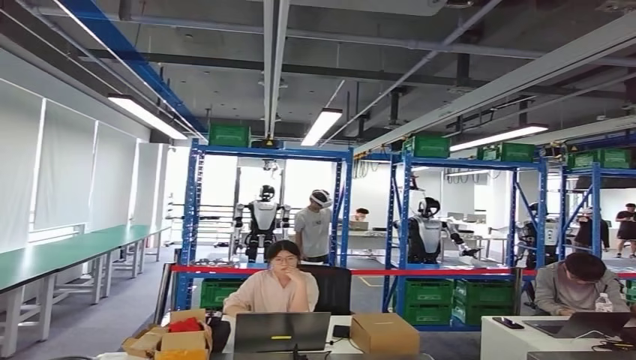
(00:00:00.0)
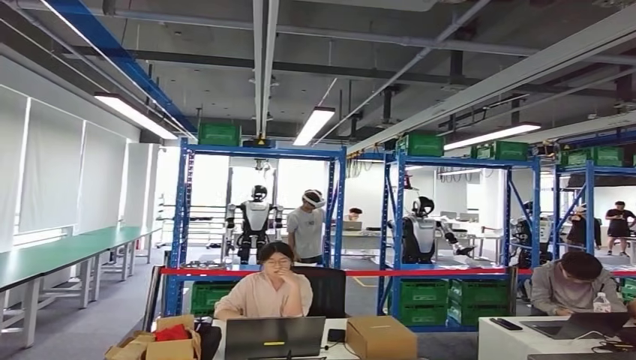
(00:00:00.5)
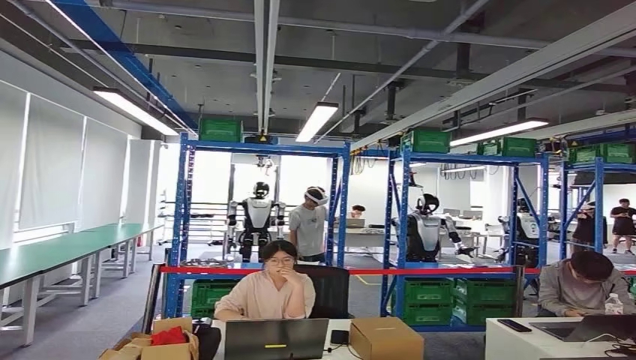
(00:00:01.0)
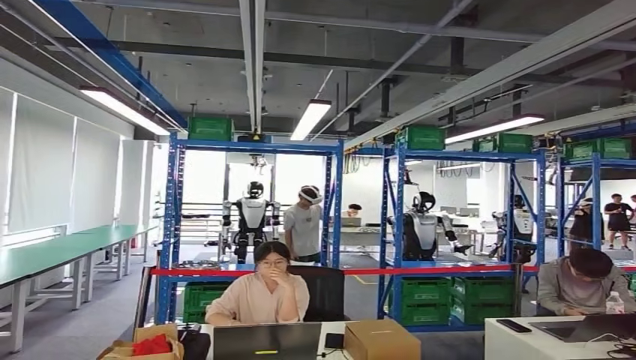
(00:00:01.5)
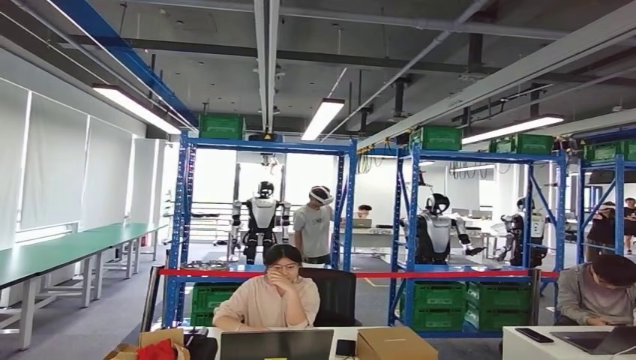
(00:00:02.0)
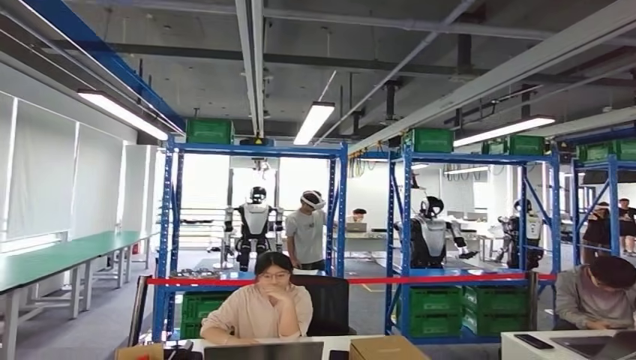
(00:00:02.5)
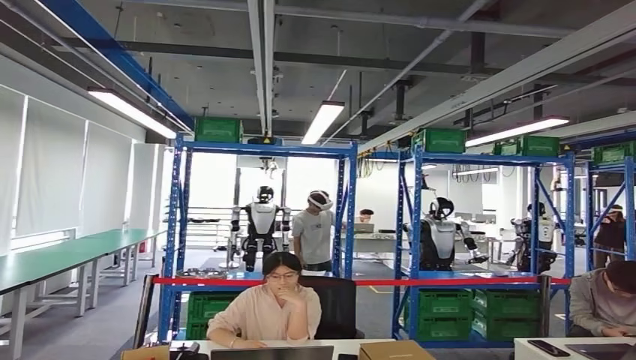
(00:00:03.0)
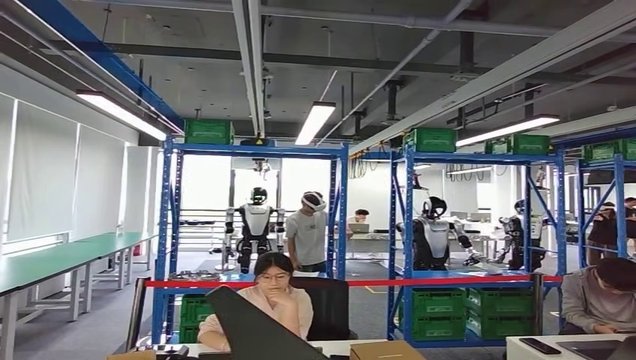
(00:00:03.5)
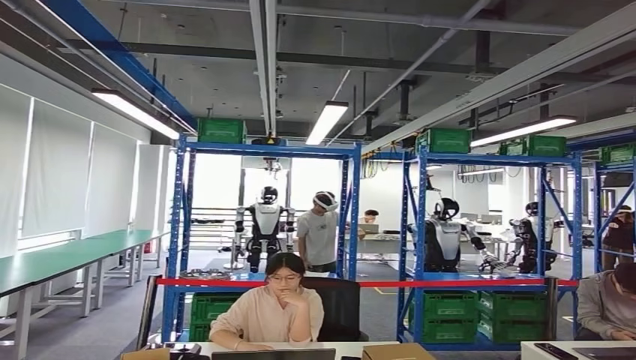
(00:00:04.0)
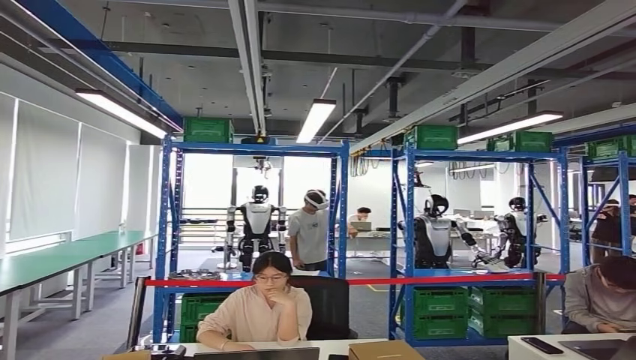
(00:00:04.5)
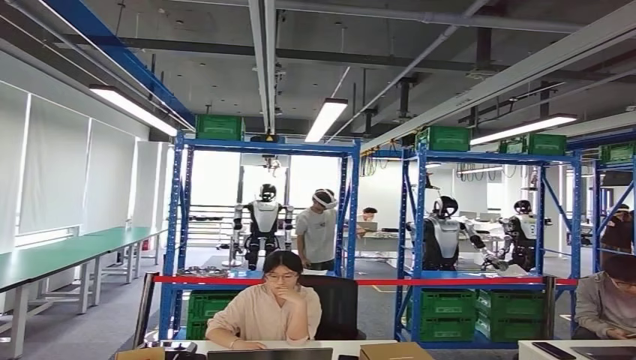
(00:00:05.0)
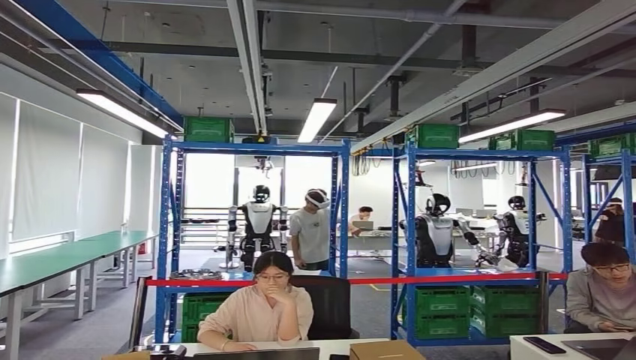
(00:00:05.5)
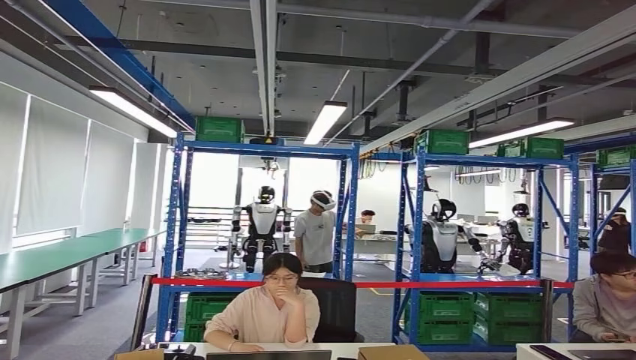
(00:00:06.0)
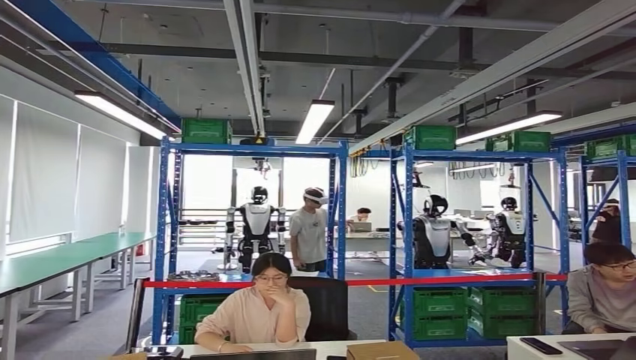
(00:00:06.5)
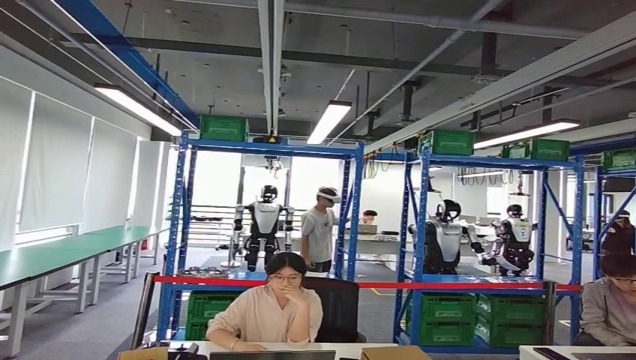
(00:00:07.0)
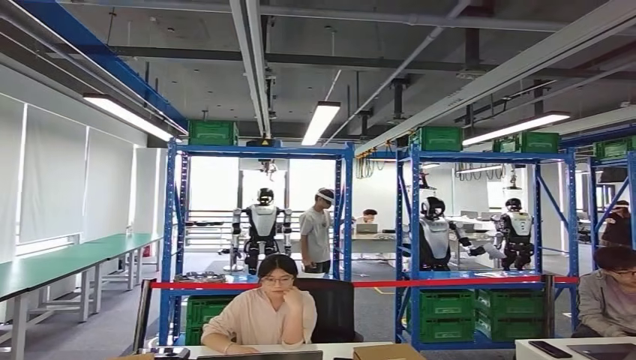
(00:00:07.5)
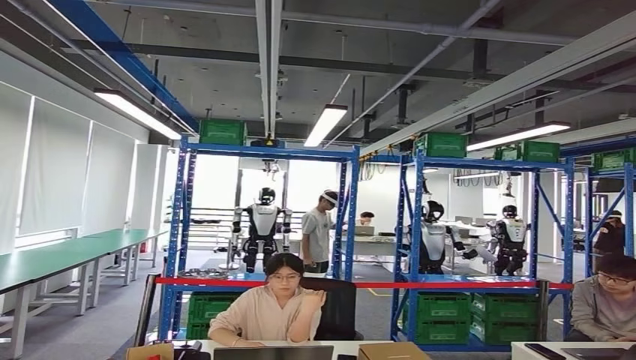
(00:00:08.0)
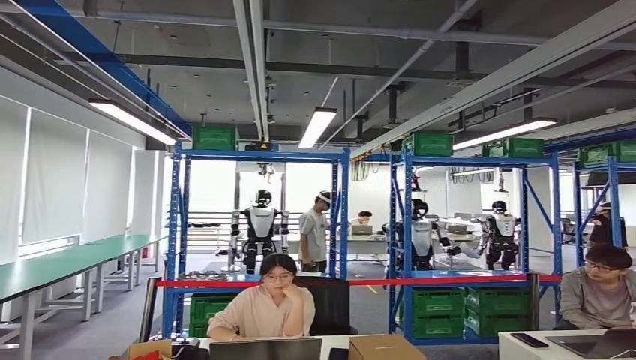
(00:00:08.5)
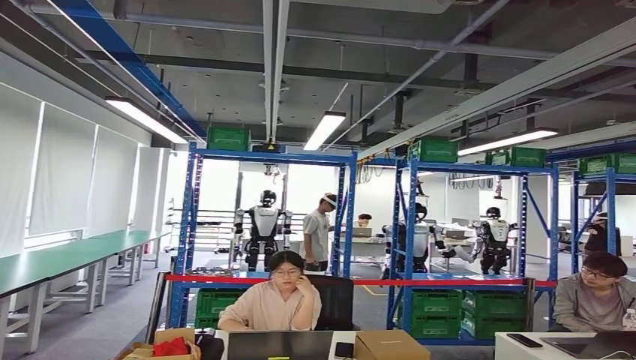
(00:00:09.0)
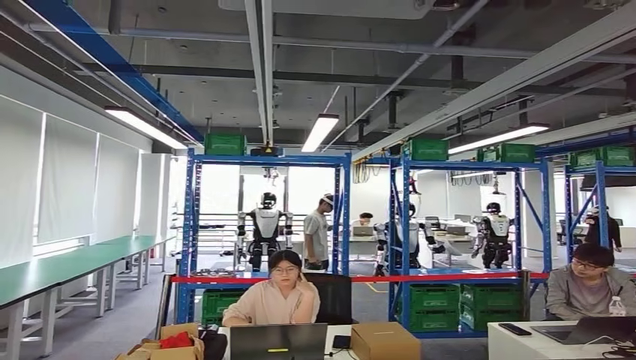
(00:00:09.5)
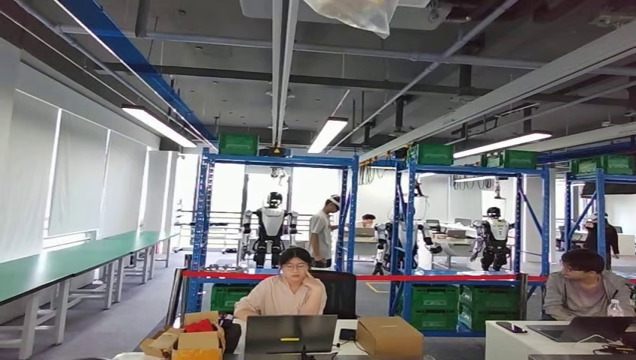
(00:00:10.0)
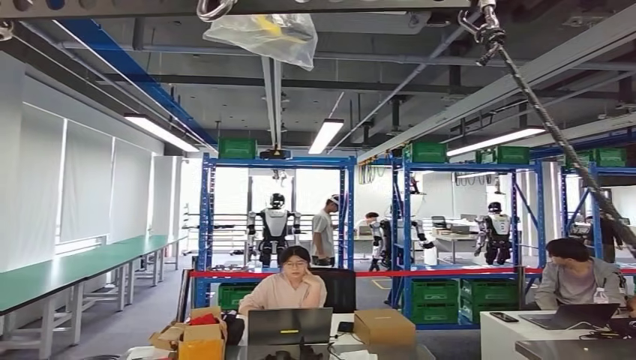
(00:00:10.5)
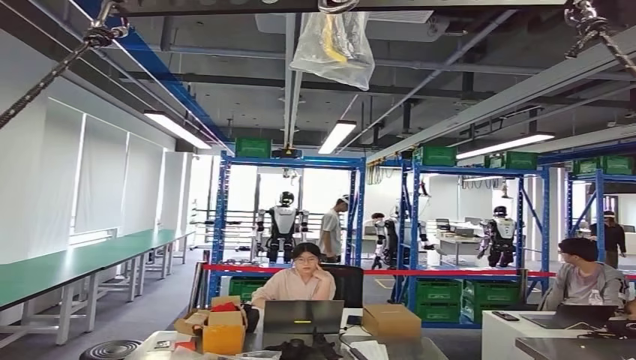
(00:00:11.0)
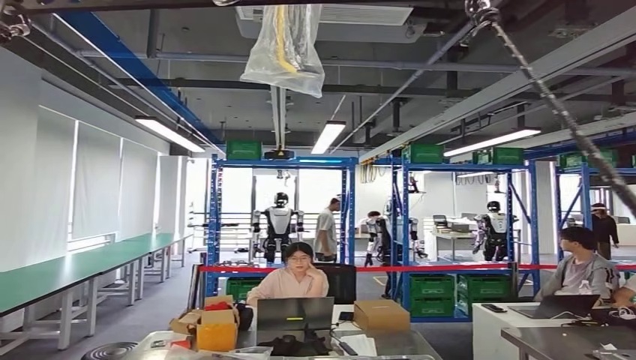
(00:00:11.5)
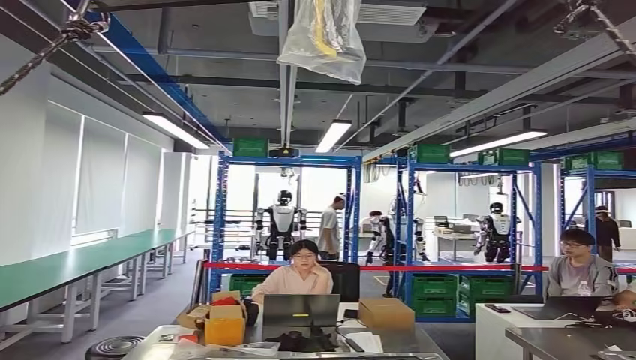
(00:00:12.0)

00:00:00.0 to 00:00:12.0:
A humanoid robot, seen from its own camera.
Step, 00:00:00.0 to 00:00:05.0: Move the small parts to the workbench.
Step, 00:00:05.5 to 00:00:09.0: Insert the small parts into the corresponding holes on the workbench.
Step, 00:00:09.5 to 00:00:11.5: Move to the initial position at the workbench.

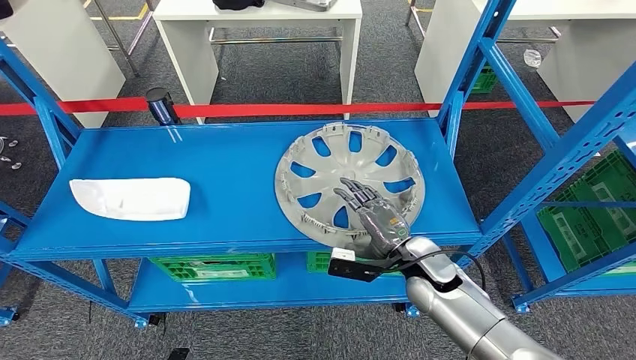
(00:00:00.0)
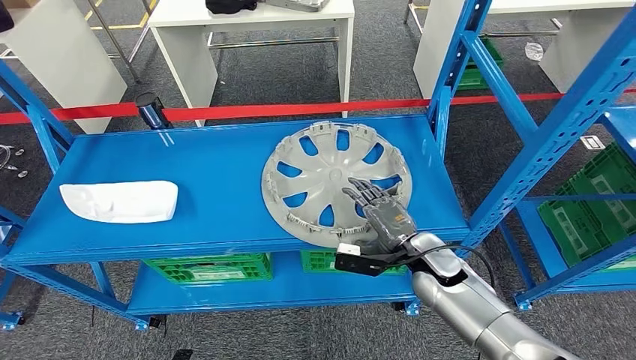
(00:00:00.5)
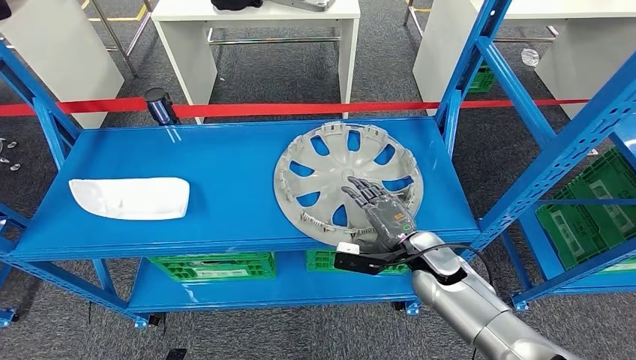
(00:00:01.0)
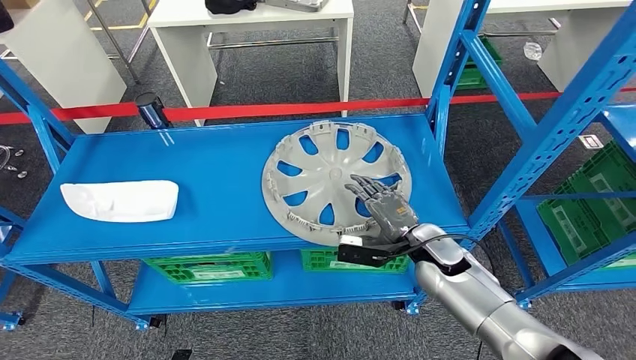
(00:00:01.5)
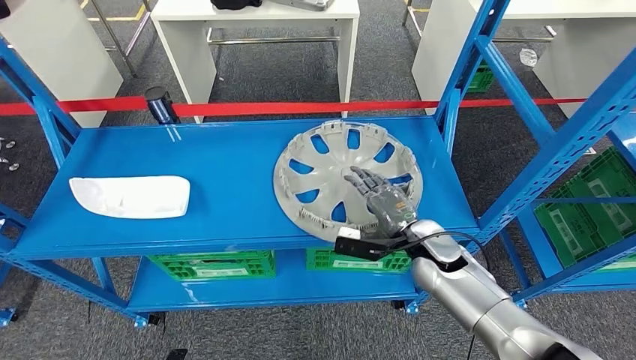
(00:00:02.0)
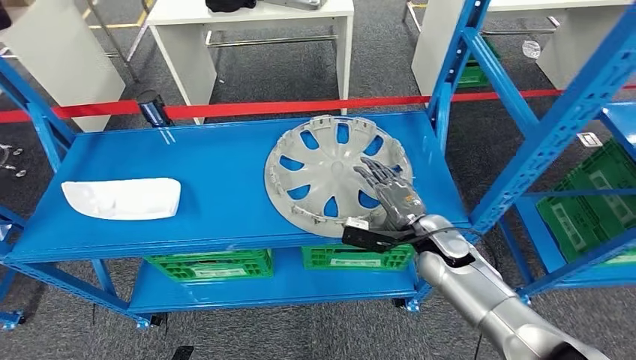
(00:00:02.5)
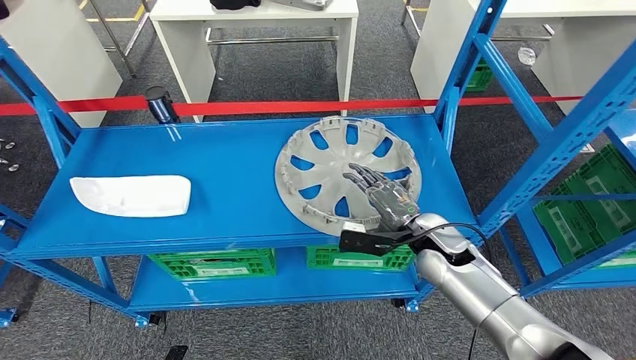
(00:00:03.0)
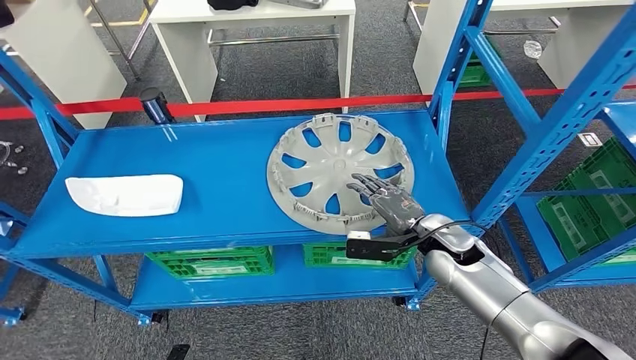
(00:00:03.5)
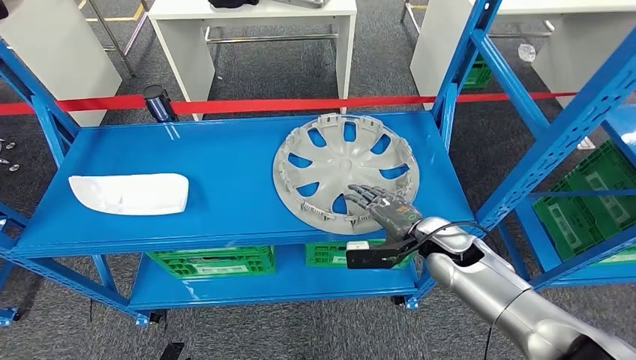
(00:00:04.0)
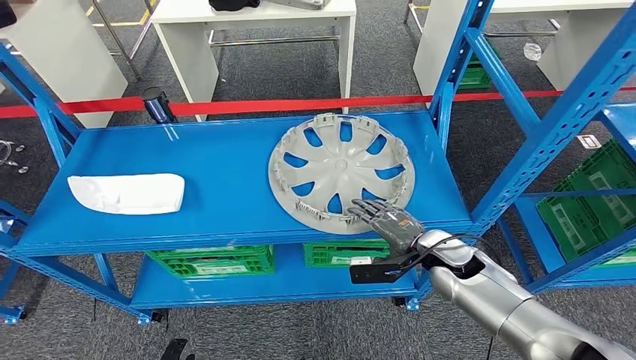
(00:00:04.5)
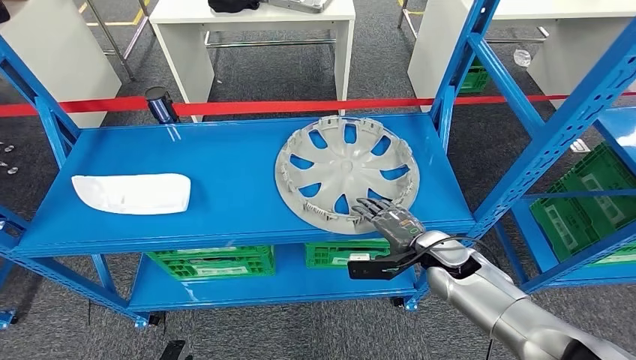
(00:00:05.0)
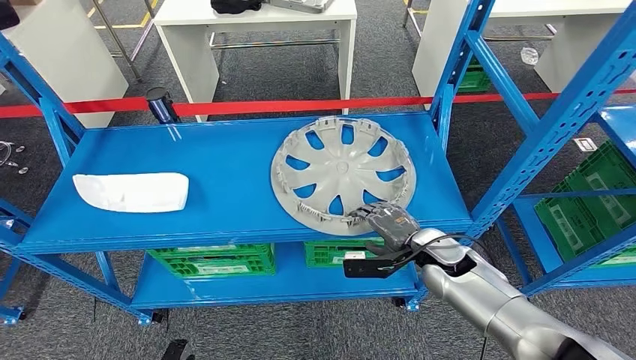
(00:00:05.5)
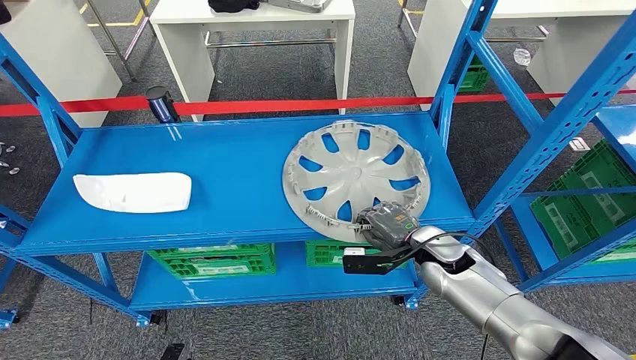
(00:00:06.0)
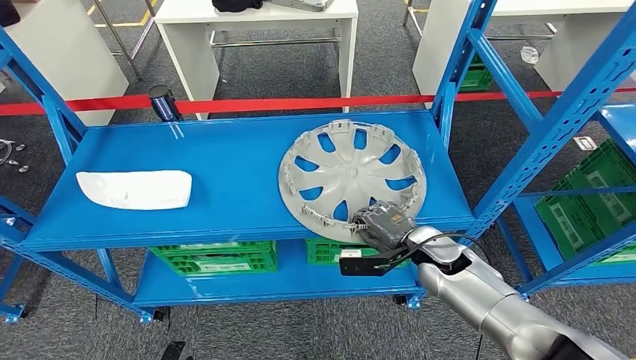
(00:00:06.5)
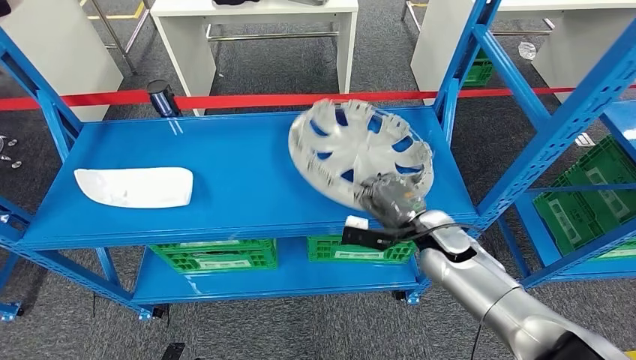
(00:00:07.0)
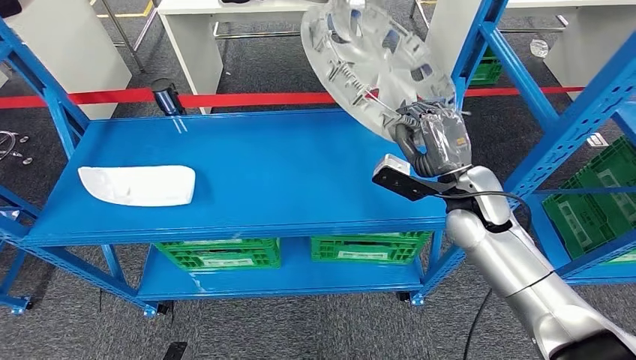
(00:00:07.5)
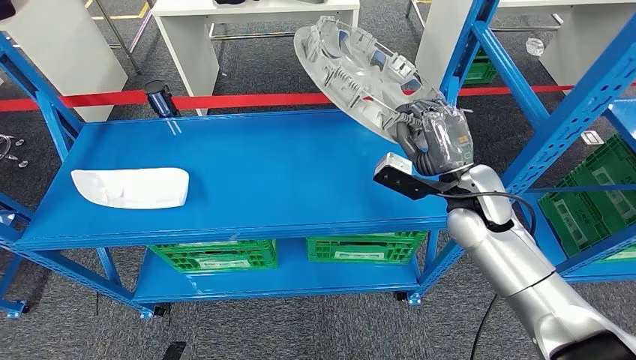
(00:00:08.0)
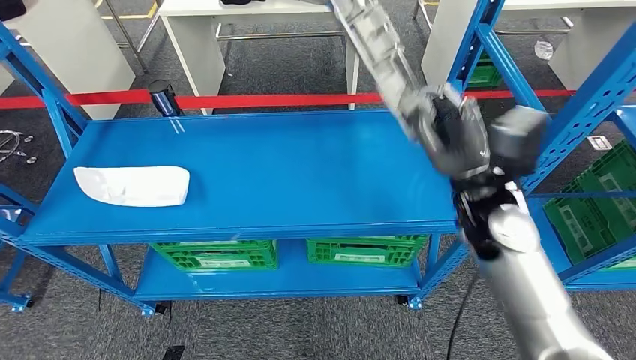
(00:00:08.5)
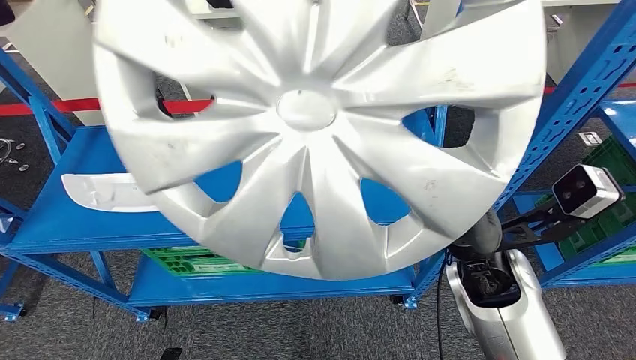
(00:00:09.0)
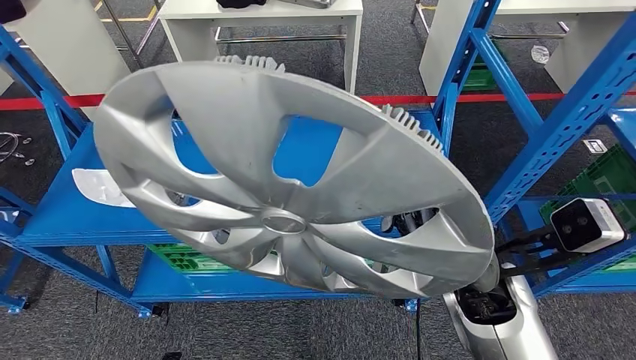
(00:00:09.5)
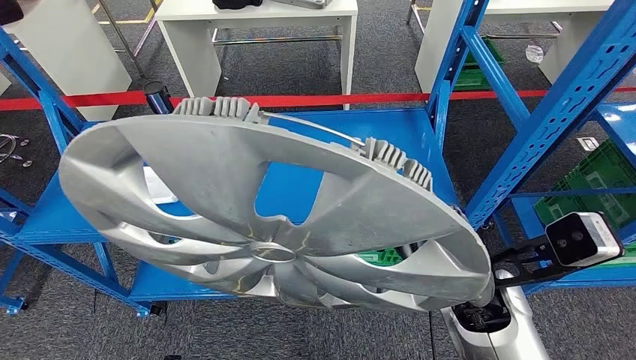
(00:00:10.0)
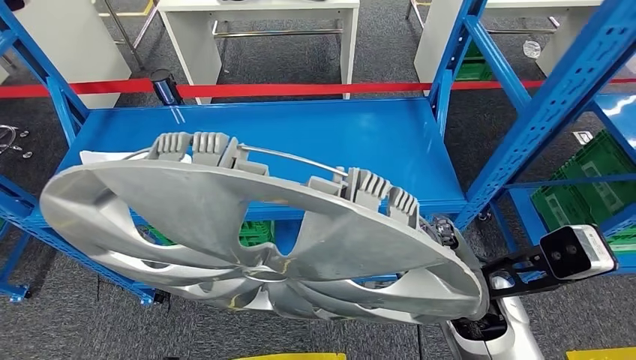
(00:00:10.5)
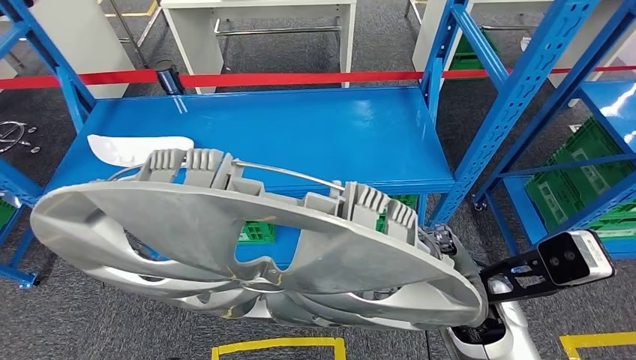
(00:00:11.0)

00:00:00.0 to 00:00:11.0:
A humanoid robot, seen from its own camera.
Step, 00:00:00.0 to 00:00:07.5: Pick up the small parts from the shelf.
00:00:00.0 to 00:00:02.0: The hands make only small movements.
00:00:03.5 to 00:00:05.5: The hands stay close to where they were, moving slightly.
